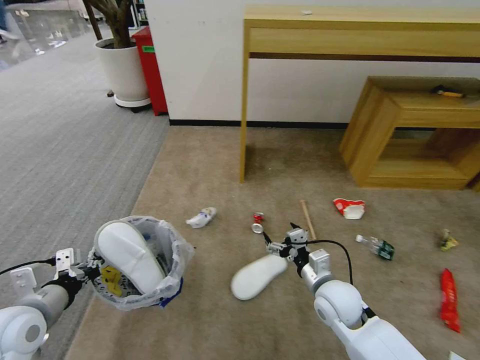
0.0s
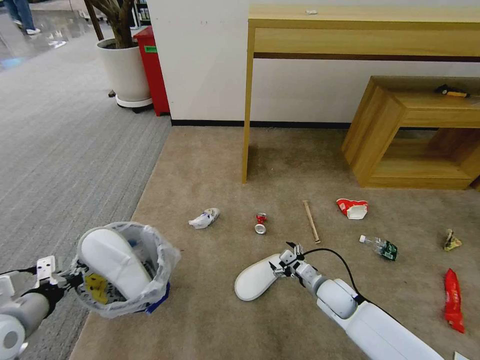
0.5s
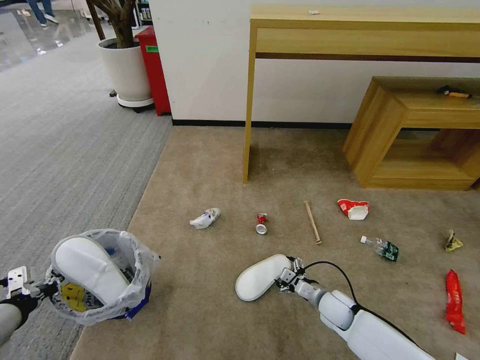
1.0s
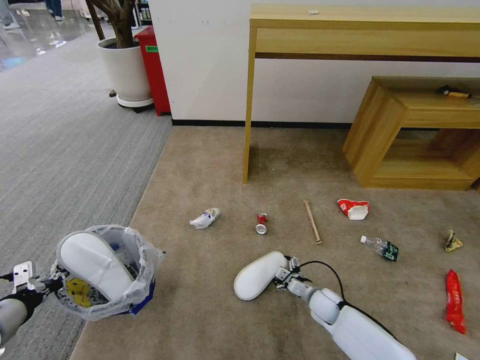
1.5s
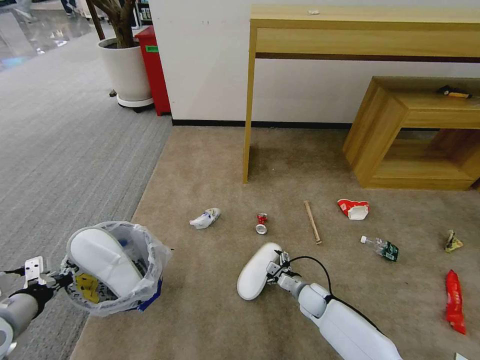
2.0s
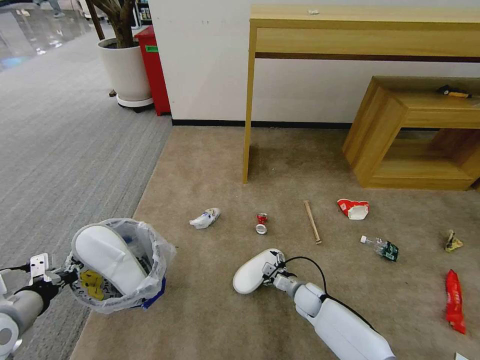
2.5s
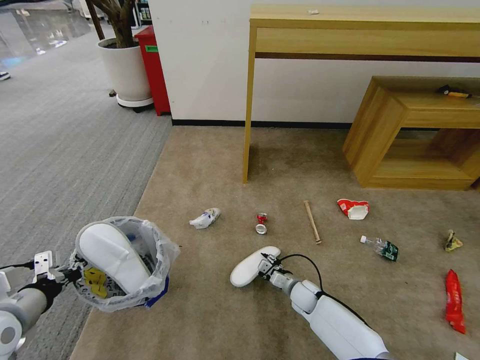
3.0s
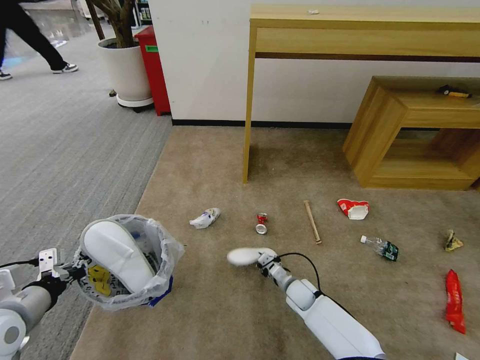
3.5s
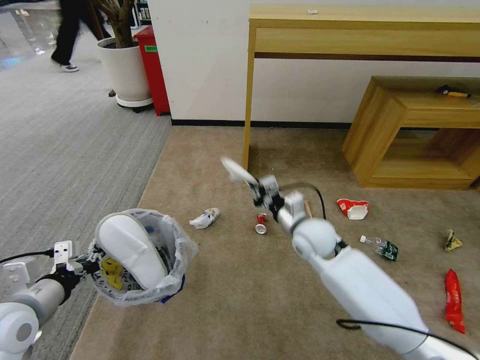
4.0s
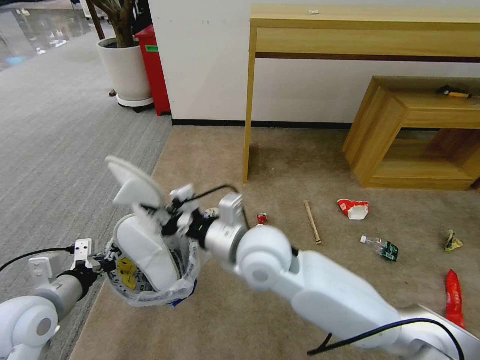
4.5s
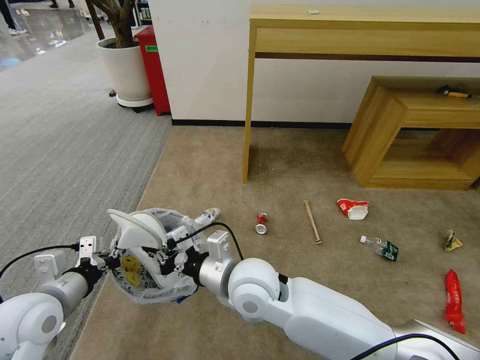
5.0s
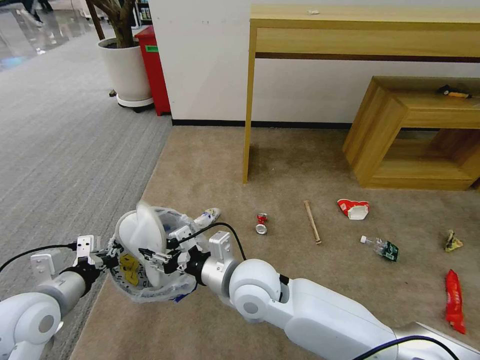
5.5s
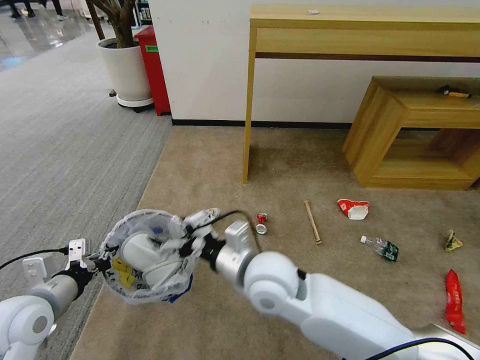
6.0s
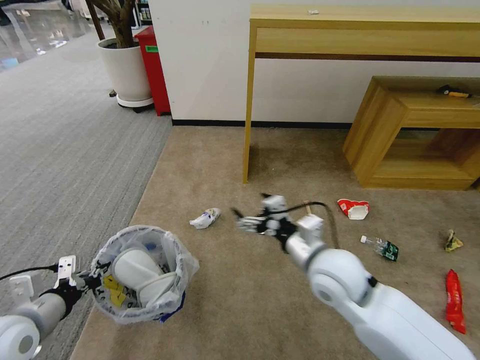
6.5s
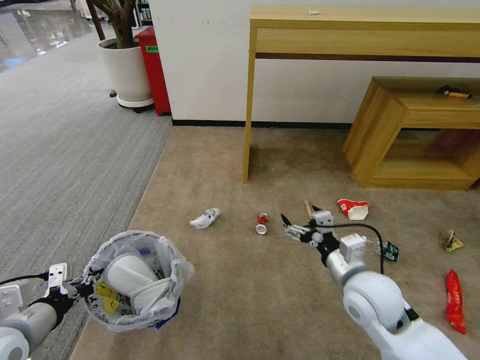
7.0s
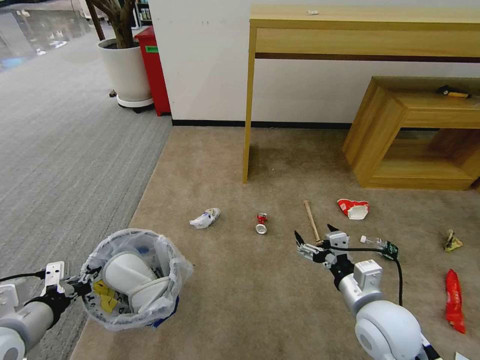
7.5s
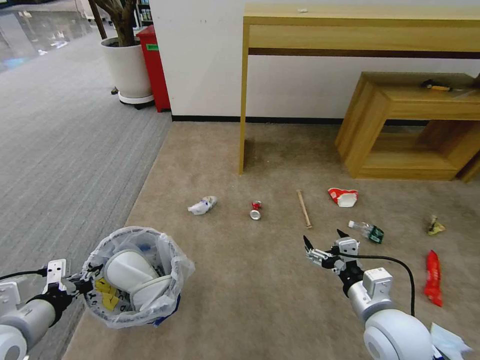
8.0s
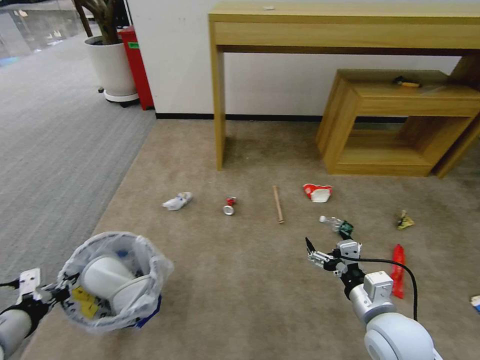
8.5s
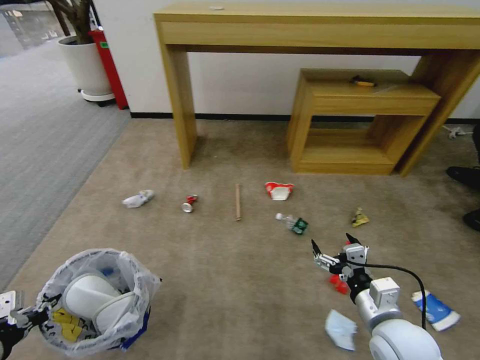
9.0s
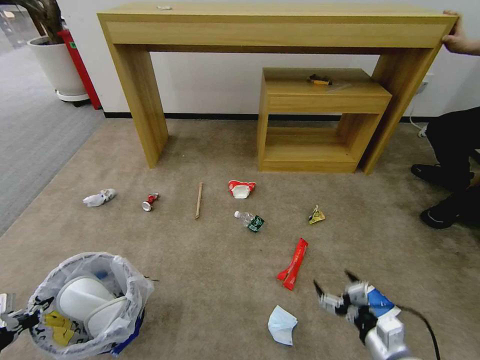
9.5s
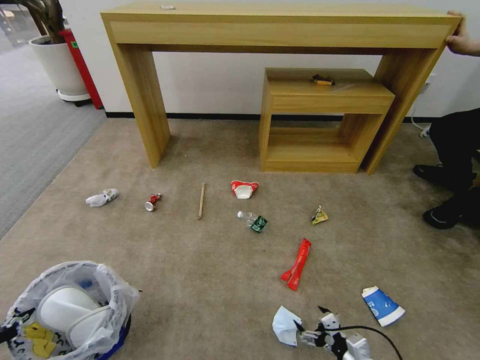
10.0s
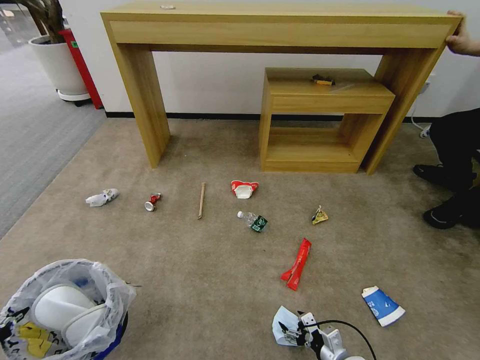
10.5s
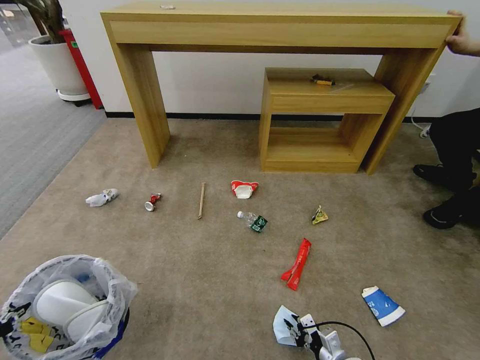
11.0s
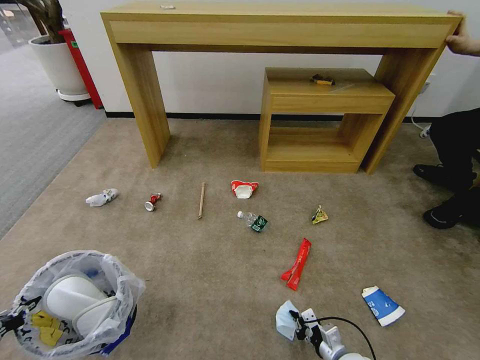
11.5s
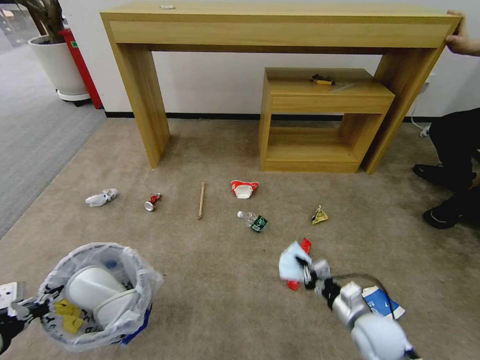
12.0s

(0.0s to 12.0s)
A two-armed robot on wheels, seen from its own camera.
Task of the whole recording: Pick up the trash bin and place the garbage on the floor into it.
0.0s - 2.0s: The left gripper heads to the left, covering some 5 cm. The right gripper shifts approximately 20 cm downward.
2.0s - 4.0s: The right gripper goes roughly 25 cm upward, and closes; the left gripper shifts about 5 cm to the right.
4.0s - 6.0s: The right gripper shifts roughly 20 cm to the left, backward and upward, and opens.
6.0s - 8.0s: The left gripper changes place by some 5 cm. The right gripper travels to the right by about 25 cm.
8.0s - 10.0s: The right gripper heads downward, covering some 20 cm. The left gripper is displaced to the left and backward by about 15 cm.
10.0s - 12.0s: The right gripper moves forward and upward, approximately 10 cm, and closes. The left gripper shifts approximately 5 cm to the right.

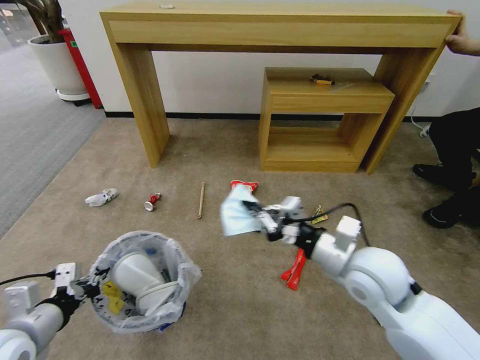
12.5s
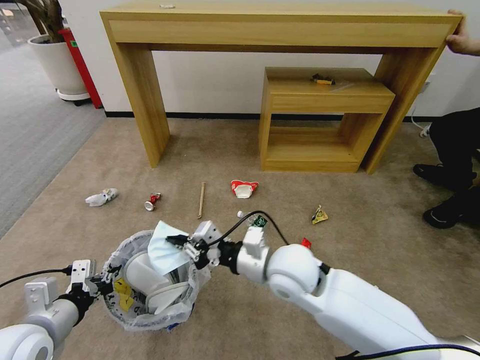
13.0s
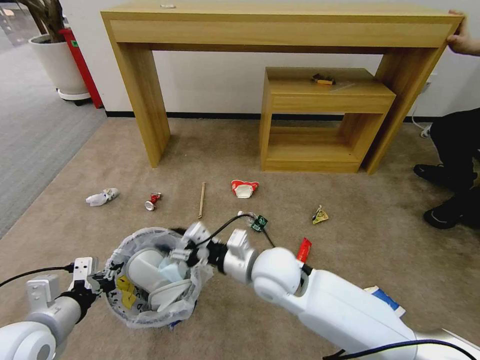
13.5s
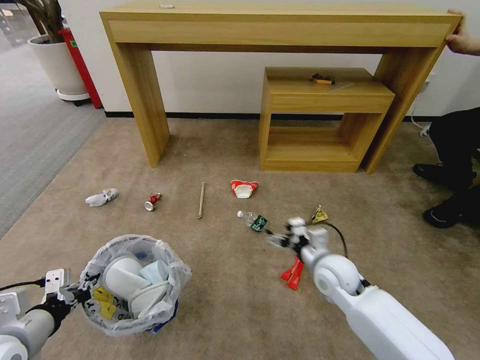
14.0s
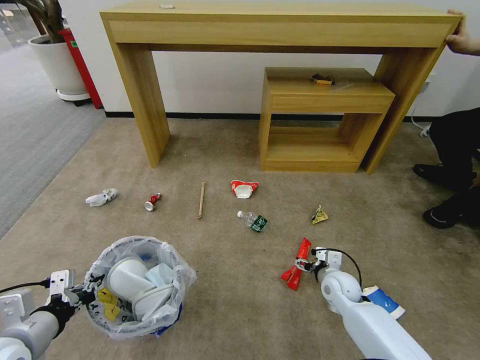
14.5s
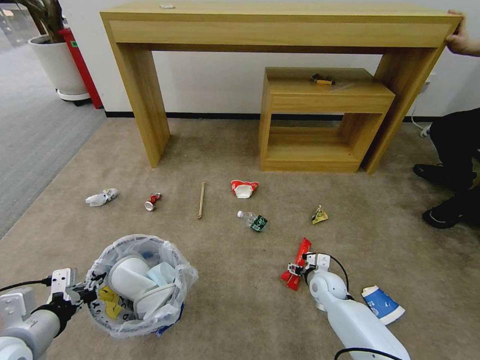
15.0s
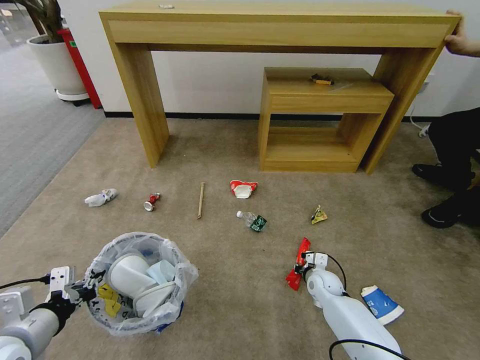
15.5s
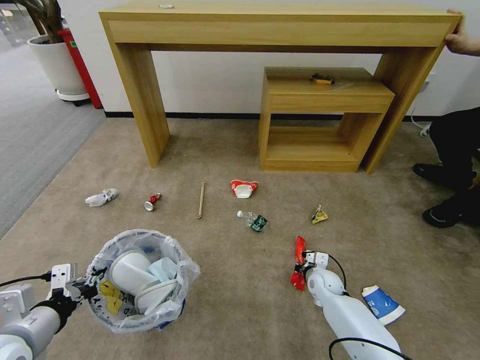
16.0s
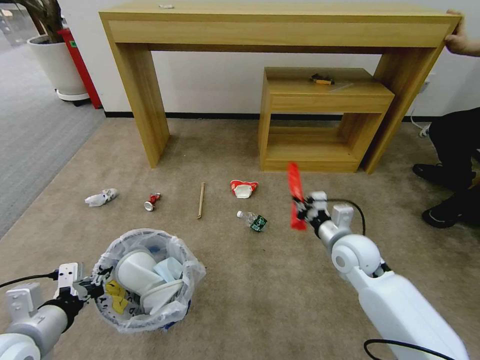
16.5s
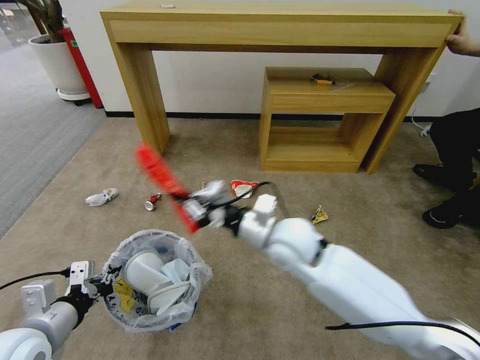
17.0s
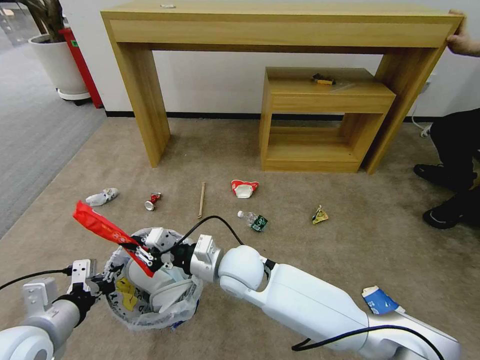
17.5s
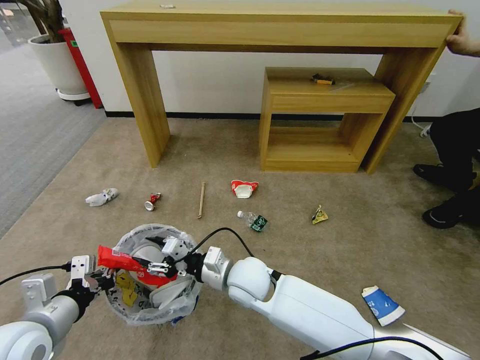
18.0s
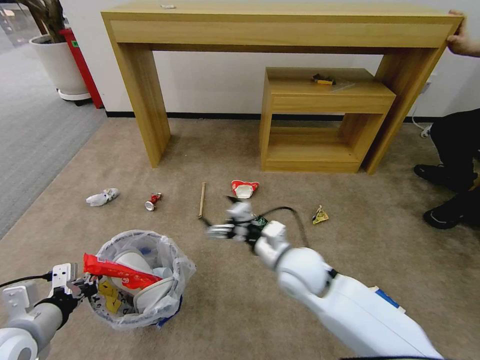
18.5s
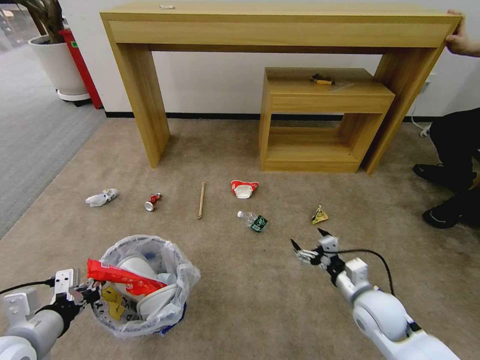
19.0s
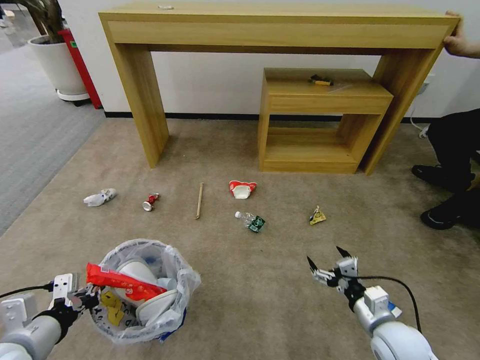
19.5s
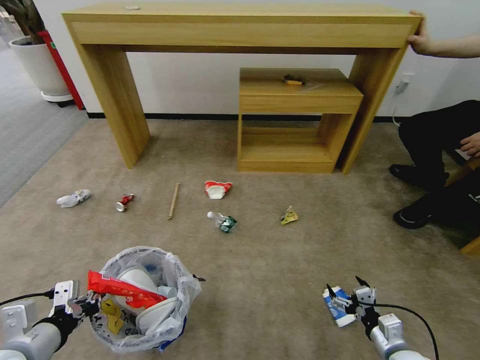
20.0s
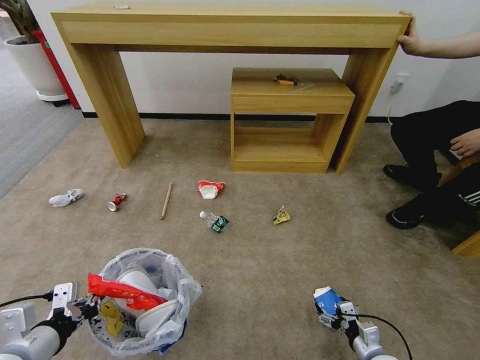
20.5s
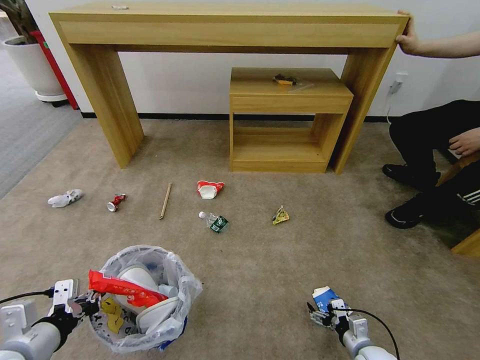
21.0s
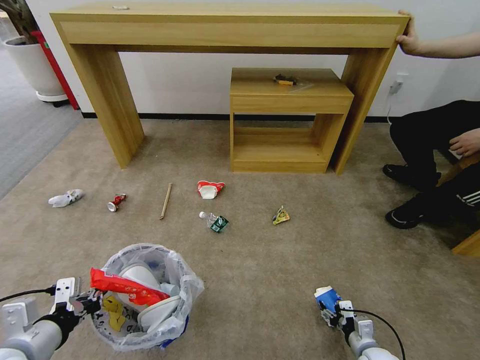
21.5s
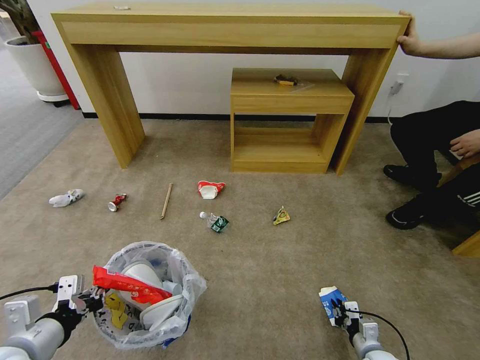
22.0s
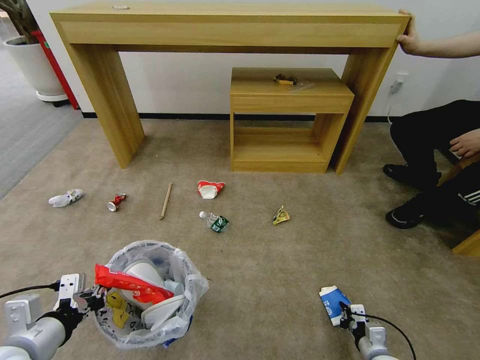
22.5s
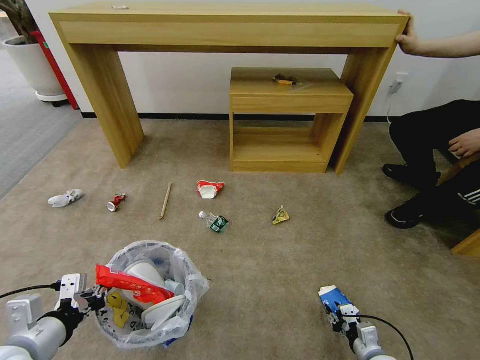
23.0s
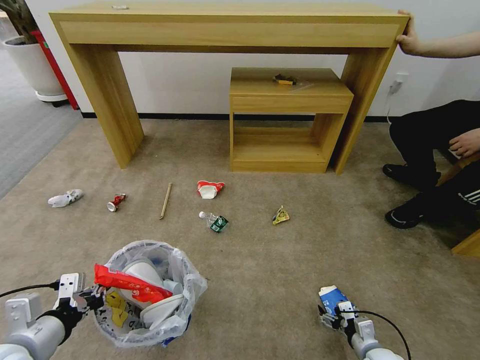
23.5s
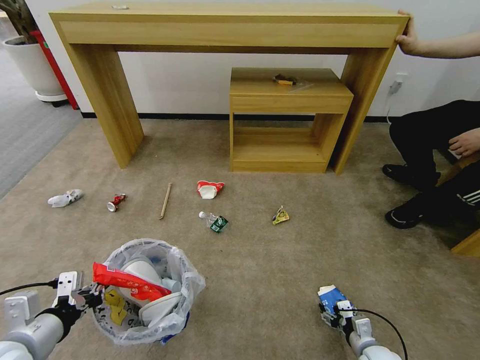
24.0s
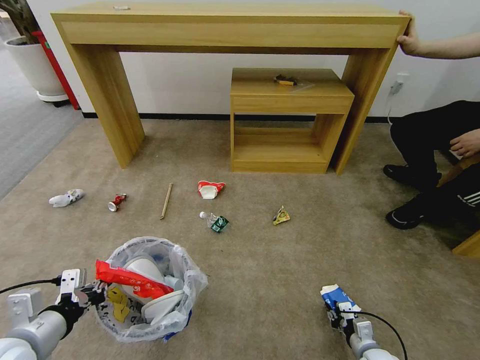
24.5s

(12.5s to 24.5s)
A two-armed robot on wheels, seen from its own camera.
Task of the whole recording: Pick up the trash bin and place the garbage on the floor into it.
12.5s - 14.5s: The right gripper goes approximately 25 cm downward, and opens up.
14.5s - 16.5s: The right gripper moves upward, roughly 15 cm, and closes its fingers.
16.5s - 18.5s: The right gripper goes roughly 15 cm to the left, and opens its fingers.
18.5s - 20.5s: The right gripper shifts approximately 40 cm downward, to the right and backward.
20.5s - 22.5s: The right gripper closes up.
22.5s - 24.5s: The right gripper opens, then closes once more.

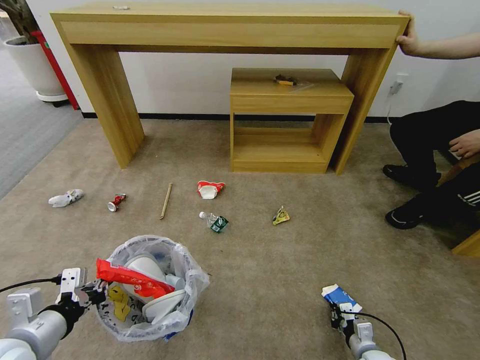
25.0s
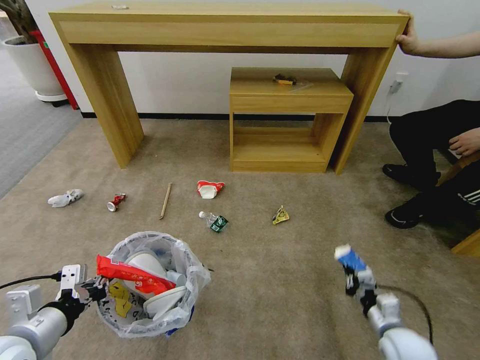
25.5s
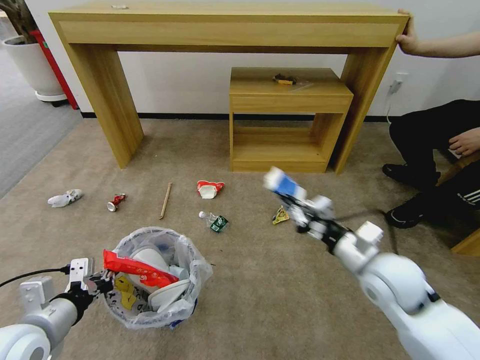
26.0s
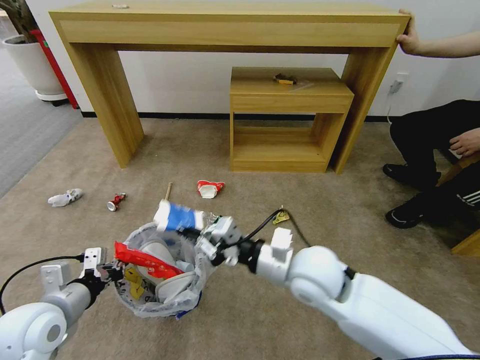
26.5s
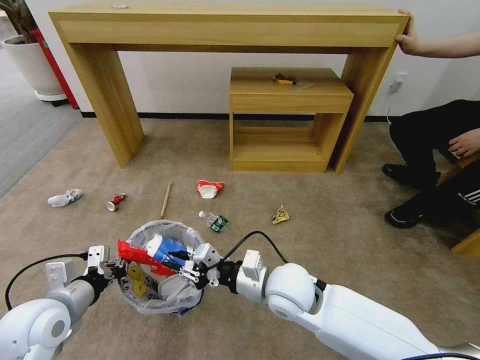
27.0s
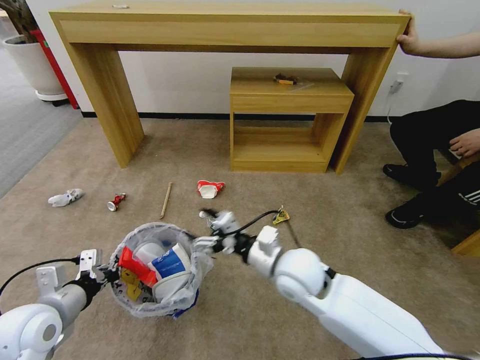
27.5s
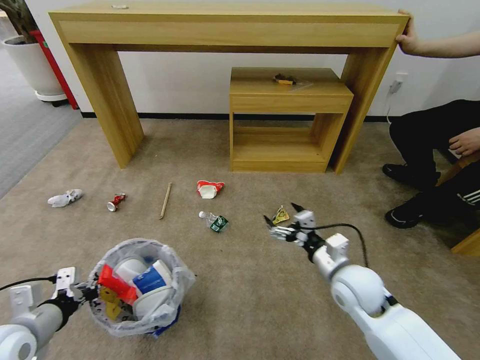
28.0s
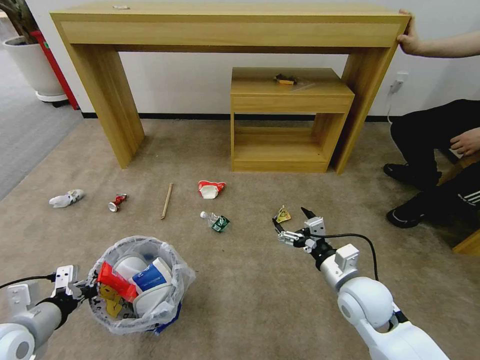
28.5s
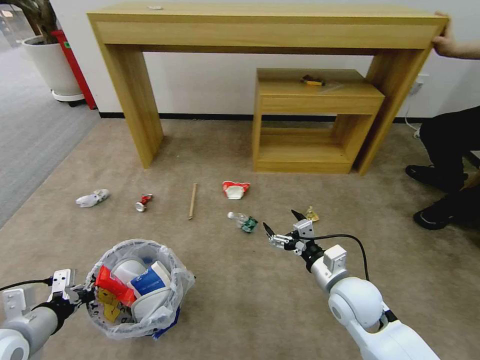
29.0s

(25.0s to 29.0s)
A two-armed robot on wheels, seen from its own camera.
Task of the whole recording: Pick up the trash bin and place the garbage on the floor into it.
25.0s - 27.0s: The right gripper goes some 40 cm upward and to the left; the left gripper goes roughly 5 cm forward.
27.0s - 29.0s: The right gripper travels to the right by approximately 15 cm, and opens. Meanwhile the left gripper goes approximately 5 cm to the left.
